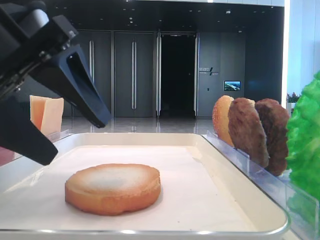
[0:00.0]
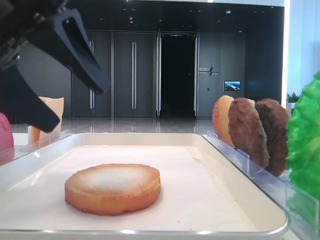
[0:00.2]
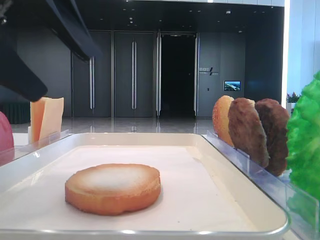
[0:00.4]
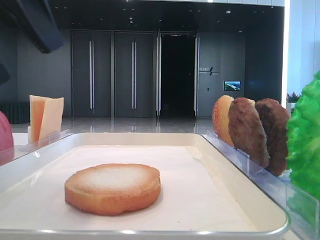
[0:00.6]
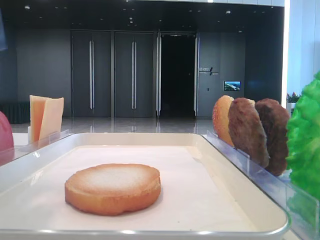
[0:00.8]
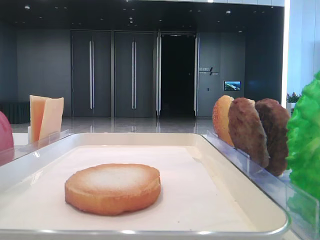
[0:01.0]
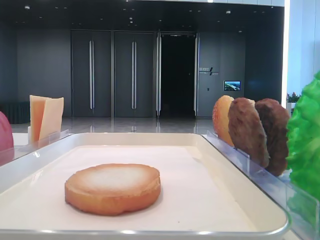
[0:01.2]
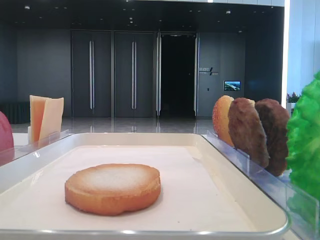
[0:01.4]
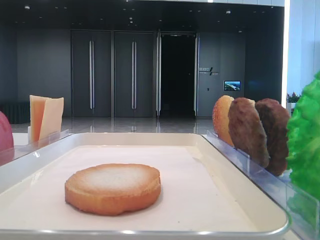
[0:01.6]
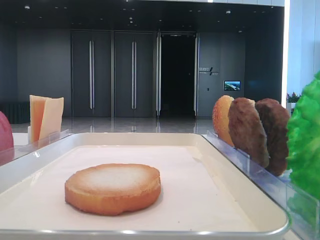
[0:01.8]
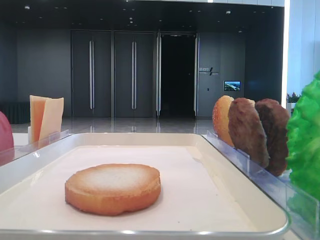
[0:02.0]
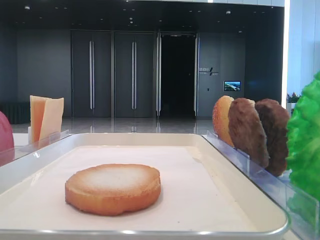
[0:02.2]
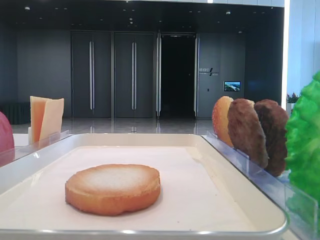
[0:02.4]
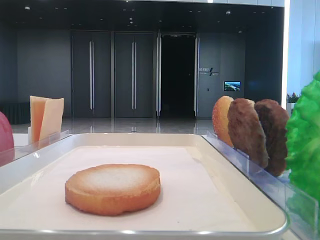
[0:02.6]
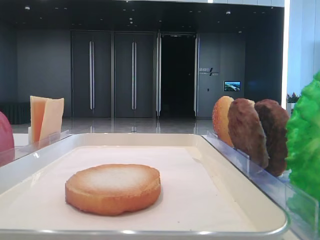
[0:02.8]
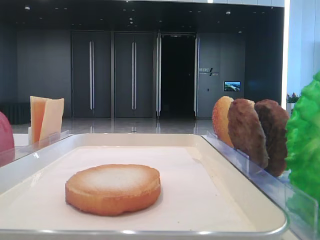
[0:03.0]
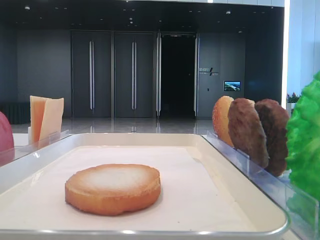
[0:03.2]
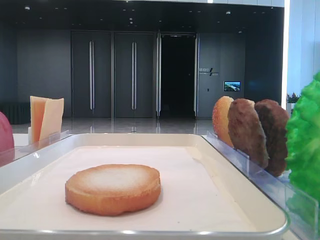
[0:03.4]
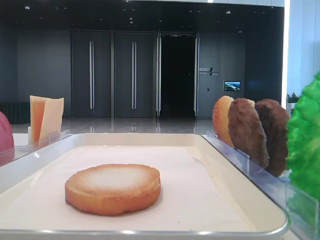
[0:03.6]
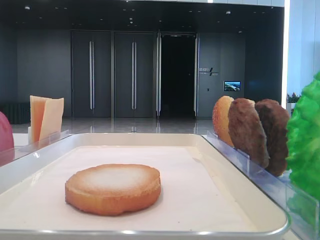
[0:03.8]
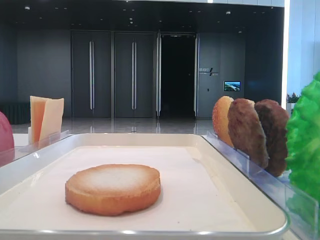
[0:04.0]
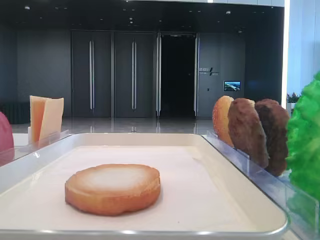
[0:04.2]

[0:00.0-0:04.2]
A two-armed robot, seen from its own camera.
0:00.0 to 0:01.4: The left gripper heads to the left and upward, covering about 20 cm.

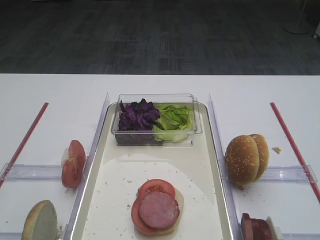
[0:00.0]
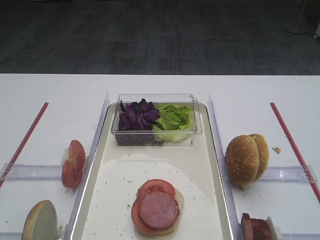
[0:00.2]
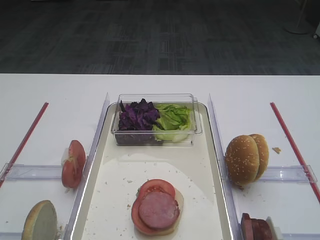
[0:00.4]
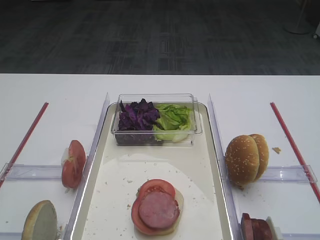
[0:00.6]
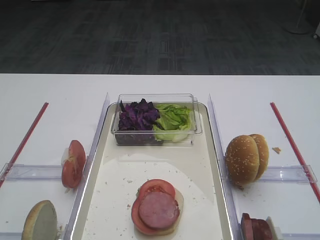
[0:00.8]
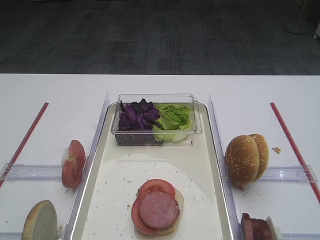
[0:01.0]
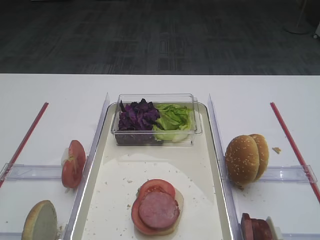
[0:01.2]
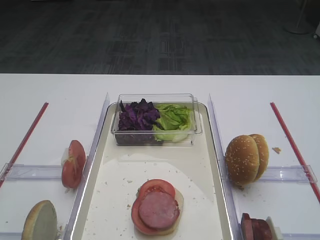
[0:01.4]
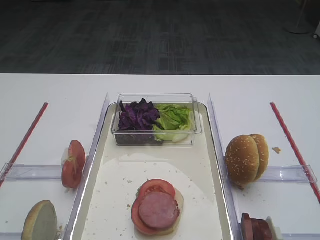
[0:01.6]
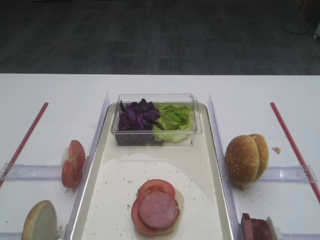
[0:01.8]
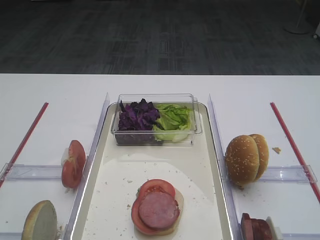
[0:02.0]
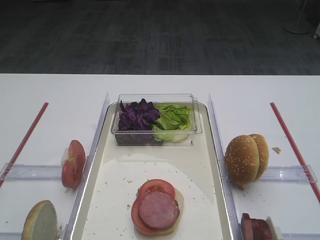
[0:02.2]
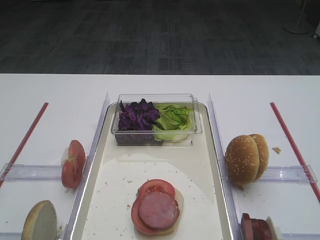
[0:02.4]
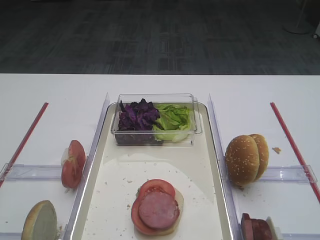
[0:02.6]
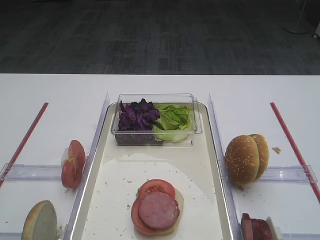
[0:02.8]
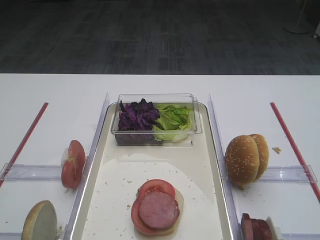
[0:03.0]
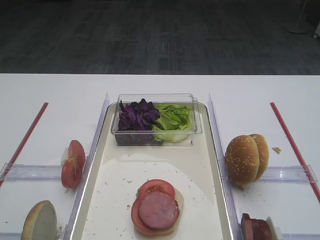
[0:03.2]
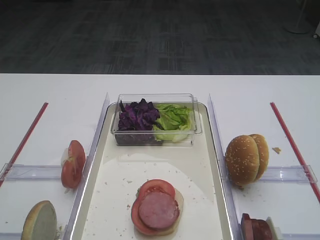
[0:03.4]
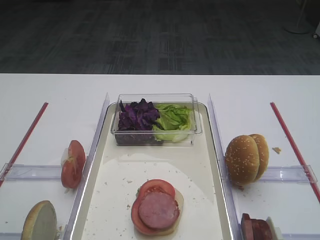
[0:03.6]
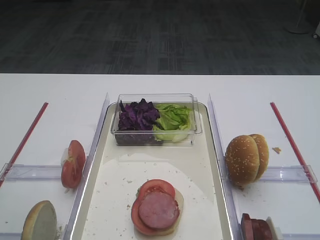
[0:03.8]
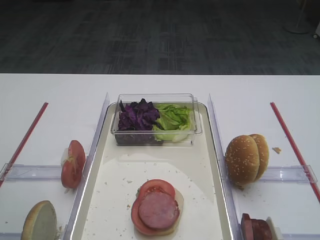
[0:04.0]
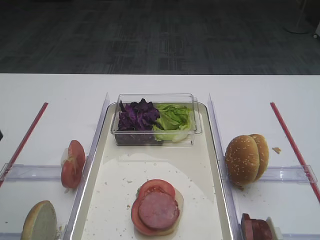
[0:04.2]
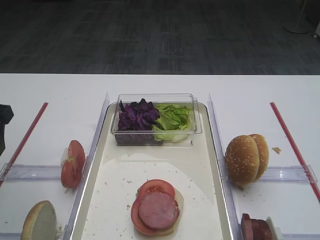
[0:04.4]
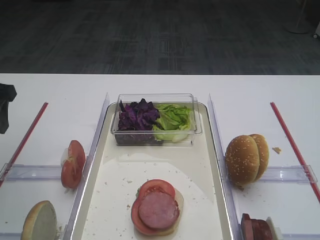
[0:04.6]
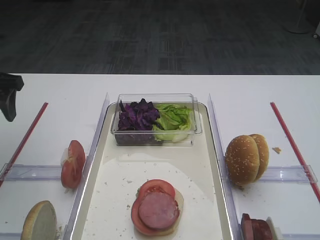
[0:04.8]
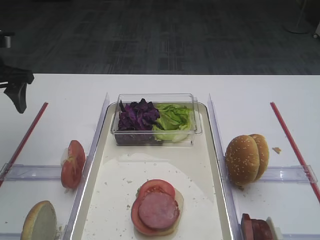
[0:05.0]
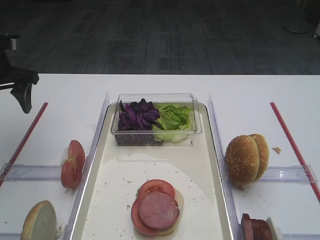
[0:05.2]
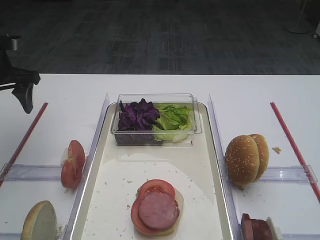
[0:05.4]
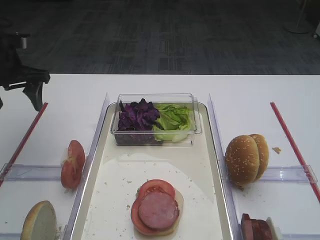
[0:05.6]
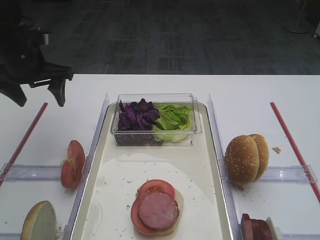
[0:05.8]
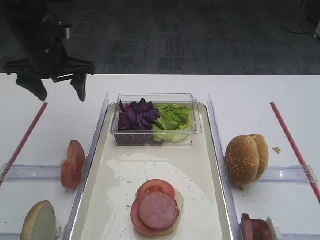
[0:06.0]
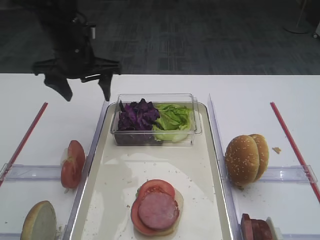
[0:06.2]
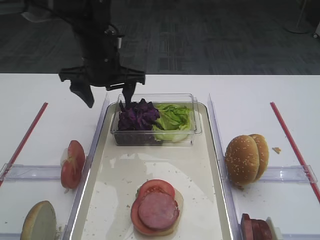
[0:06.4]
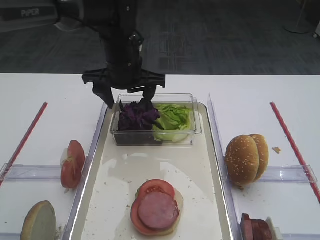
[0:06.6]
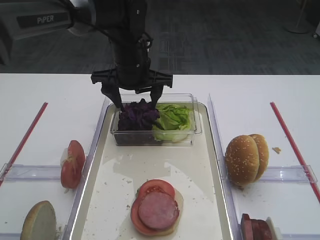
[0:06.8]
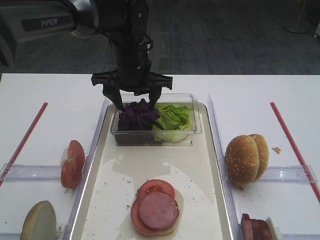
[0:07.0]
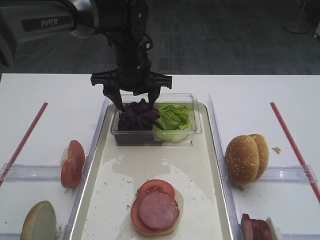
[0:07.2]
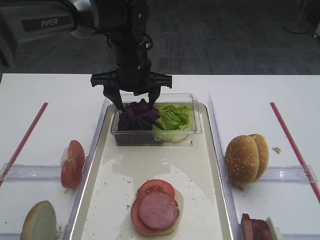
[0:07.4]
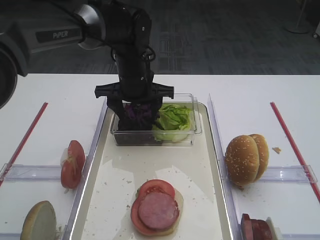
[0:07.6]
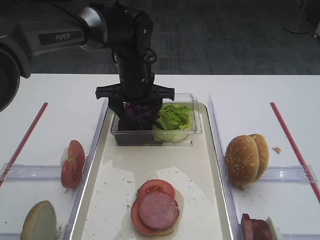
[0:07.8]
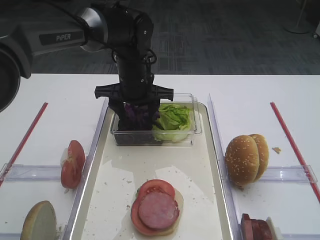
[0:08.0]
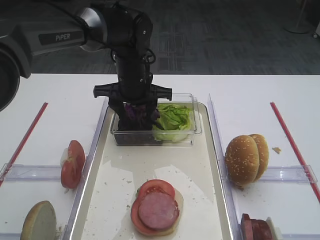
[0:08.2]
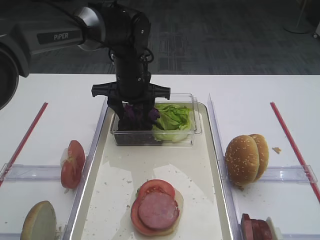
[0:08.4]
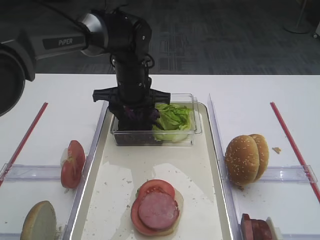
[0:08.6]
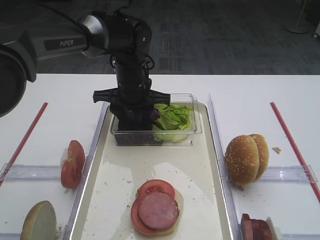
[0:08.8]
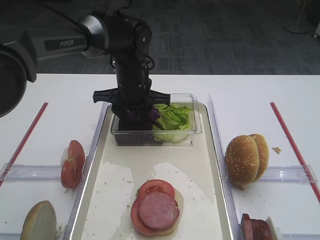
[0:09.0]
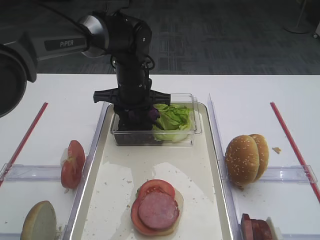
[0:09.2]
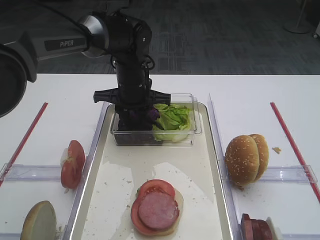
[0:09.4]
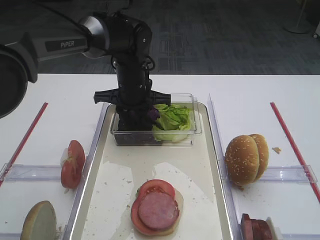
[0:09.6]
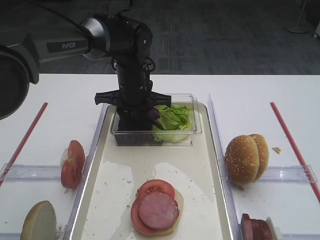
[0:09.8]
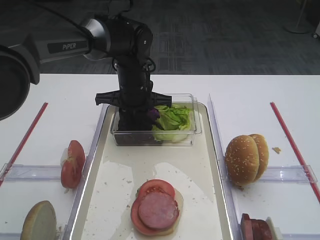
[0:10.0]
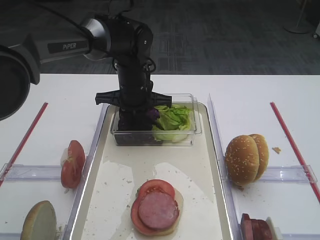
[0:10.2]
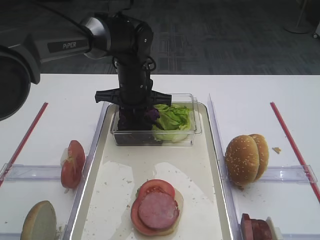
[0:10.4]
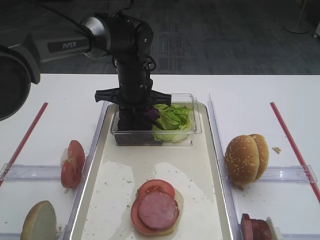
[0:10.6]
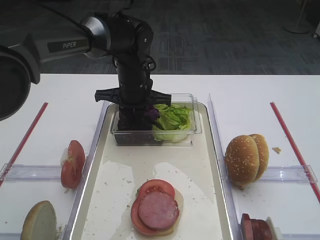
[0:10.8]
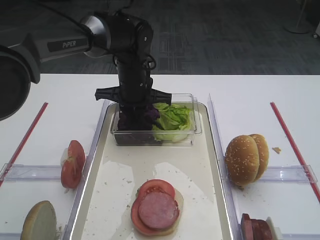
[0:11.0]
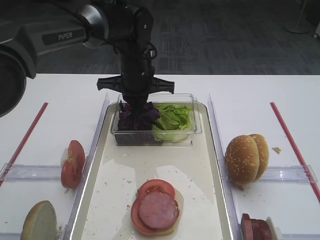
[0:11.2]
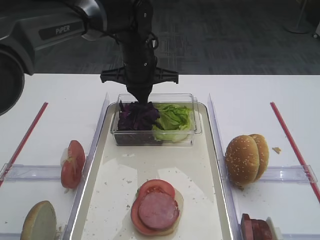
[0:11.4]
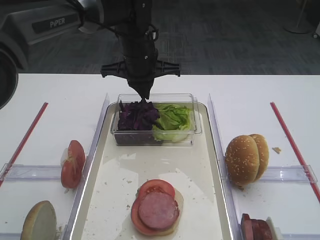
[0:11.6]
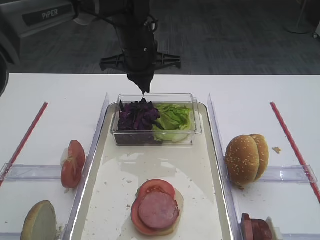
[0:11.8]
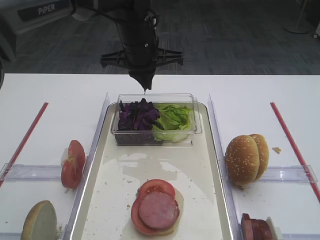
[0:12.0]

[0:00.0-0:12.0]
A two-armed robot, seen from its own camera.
0:03.0 to 0:04.4: The left gripper goes roughly 20 cm forward.
0:04.4 to 0:06.0: The left gripper heads forward and to the right, covering about 15 cm.
0:06.0 to 0:07.6: The left gripper is displaced to the right by some 15 cm.
0:07.6 to 0:09.0: The left gripper closes.
0:09.0 to 0:10.4: The left gripper closes up.
0:10.4 to 0:12.0: The left gripper heads upward, covering roughly 10 cm.

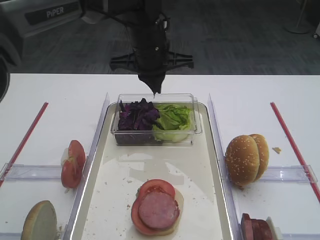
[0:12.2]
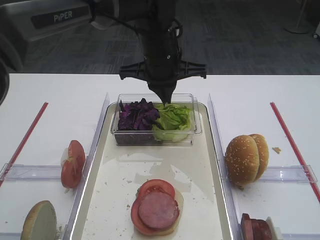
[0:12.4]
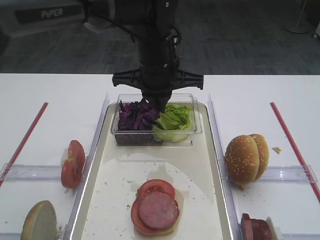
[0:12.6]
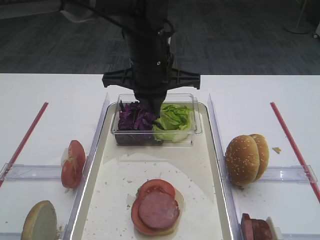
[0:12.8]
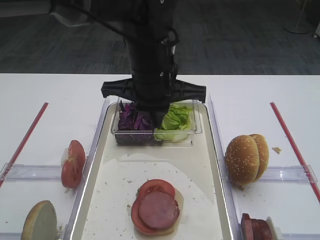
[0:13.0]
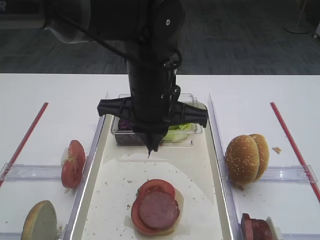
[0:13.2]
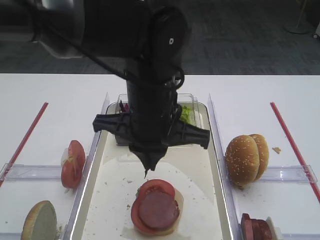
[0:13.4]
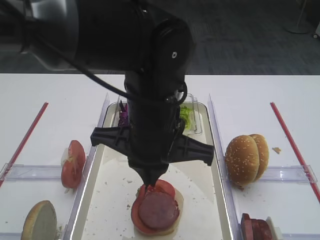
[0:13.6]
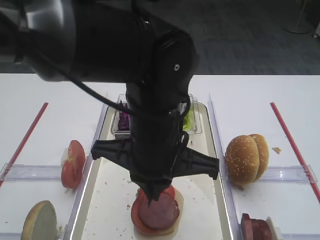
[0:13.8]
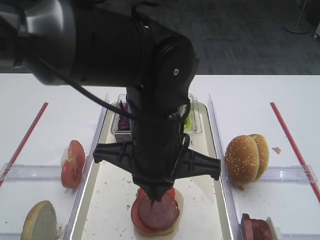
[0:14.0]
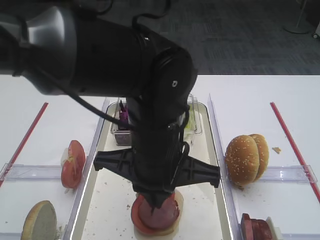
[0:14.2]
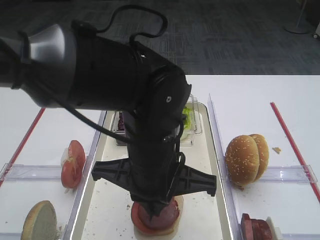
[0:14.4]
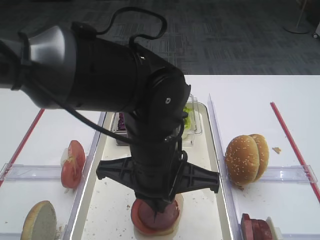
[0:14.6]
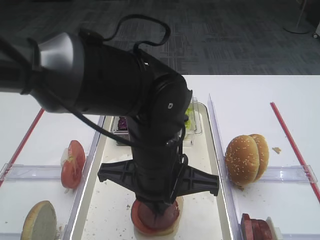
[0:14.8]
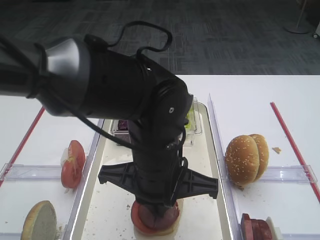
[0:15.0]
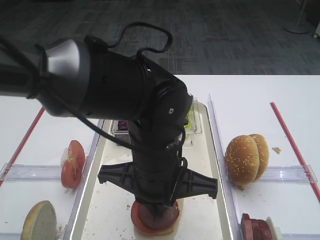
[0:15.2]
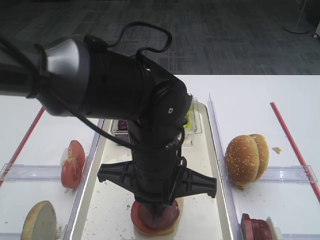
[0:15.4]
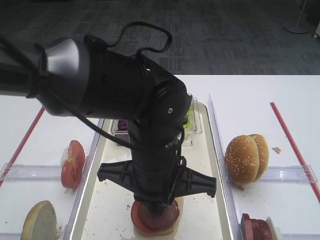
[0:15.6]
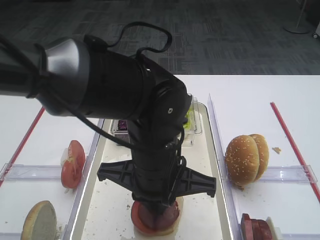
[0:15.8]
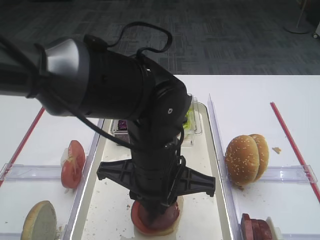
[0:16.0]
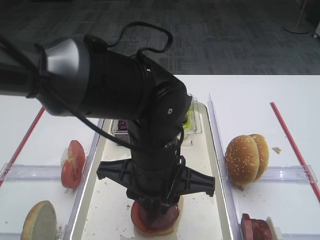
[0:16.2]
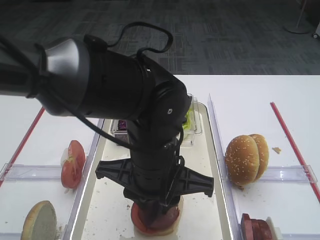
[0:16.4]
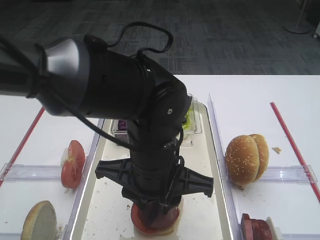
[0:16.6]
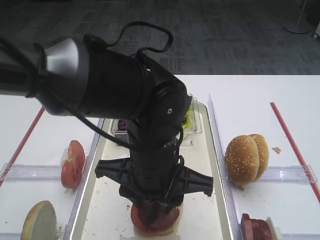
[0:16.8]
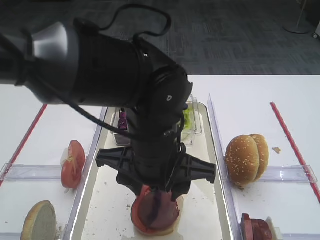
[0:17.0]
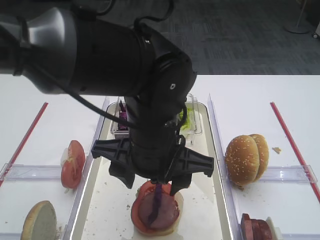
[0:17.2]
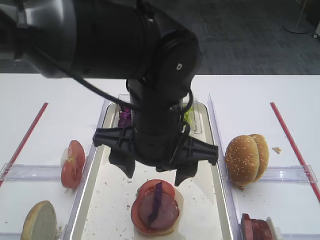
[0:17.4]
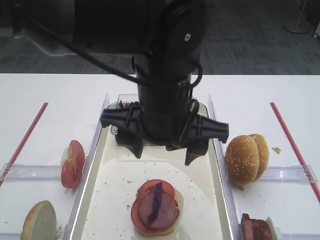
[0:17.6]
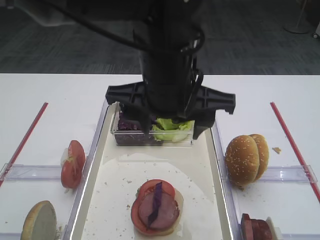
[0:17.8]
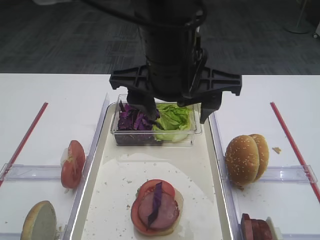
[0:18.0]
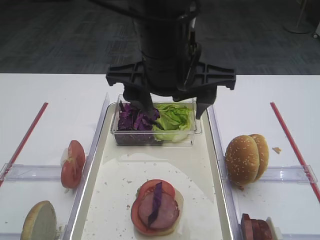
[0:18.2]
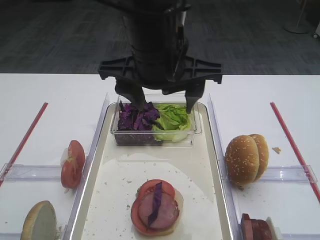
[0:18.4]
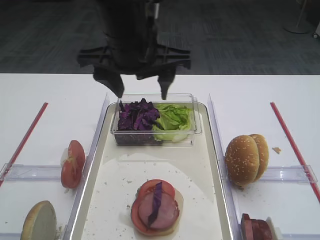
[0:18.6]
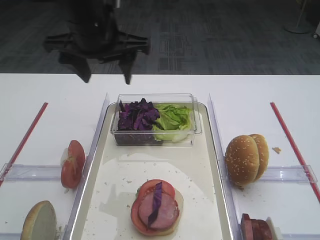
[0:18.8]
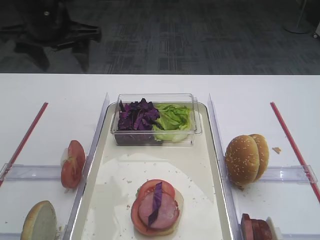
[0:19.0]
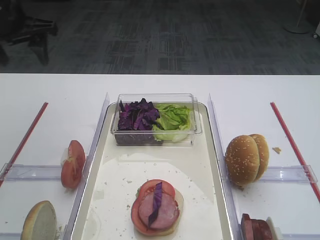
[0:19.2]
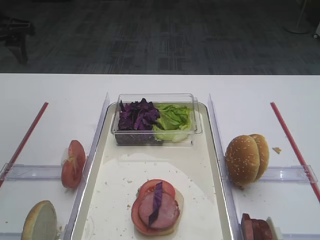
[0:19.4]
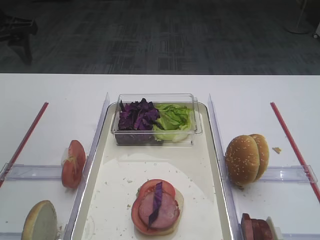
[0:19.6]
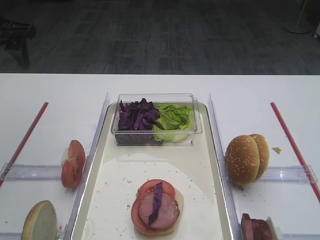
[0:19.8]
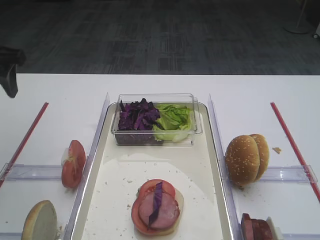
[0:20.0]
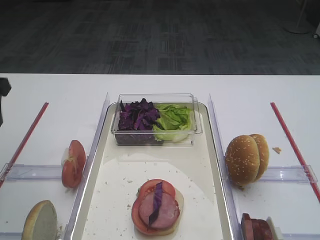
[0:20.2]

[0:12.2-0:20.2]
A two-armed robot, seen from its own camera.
Step, 0:12.2 to 0:17.6: Place the purple cabbage on the cutlet with the left gripper.
0:12.2 to 0:13.8: The left gripper heads backward, covering about 20 cm.
0:15.4 to 0:17.0: The left gripper opens its fingers.
0:17.0 to 0:18.6: The left gripper travels upward, forward and to the left by about 15 cm.
0:18.6 to 0:20.2: The left gripper heads to the left, covering some 25 cm.
